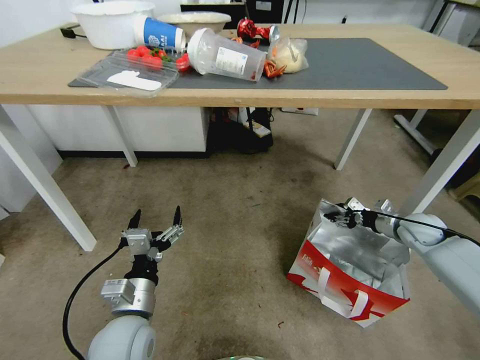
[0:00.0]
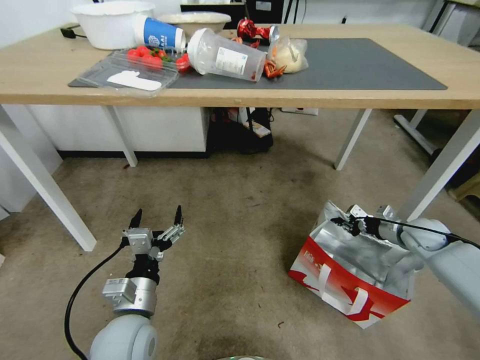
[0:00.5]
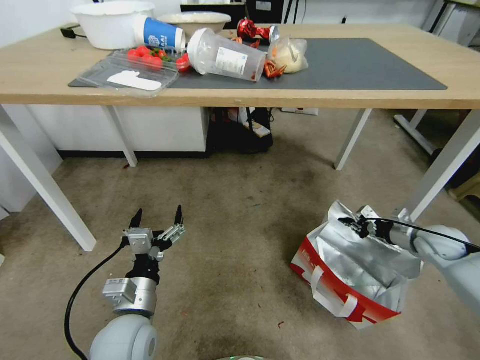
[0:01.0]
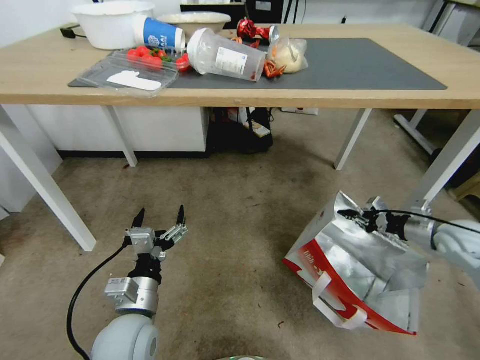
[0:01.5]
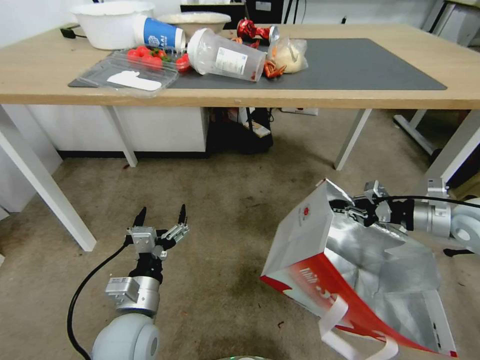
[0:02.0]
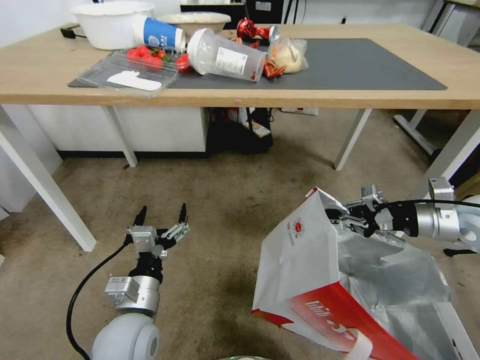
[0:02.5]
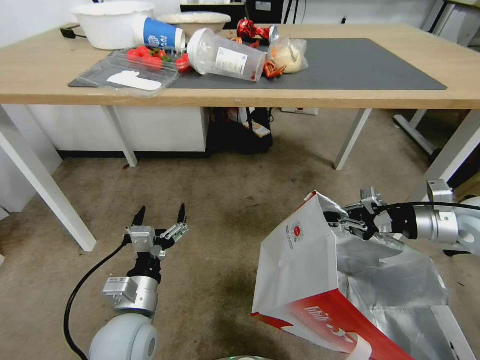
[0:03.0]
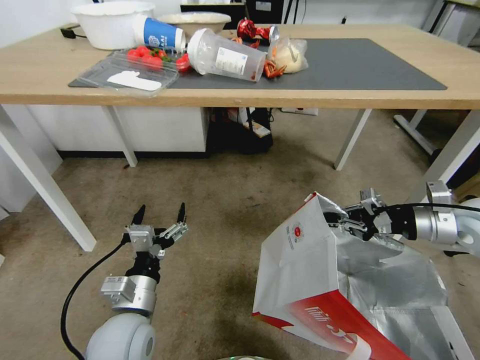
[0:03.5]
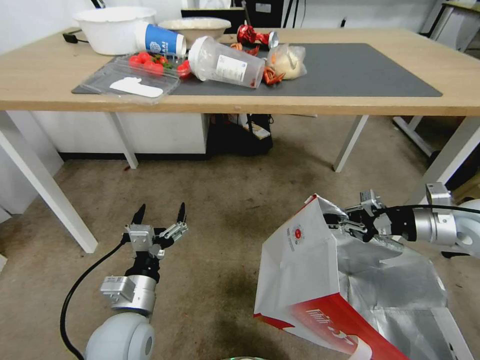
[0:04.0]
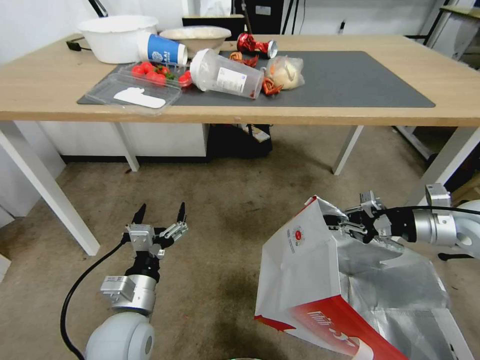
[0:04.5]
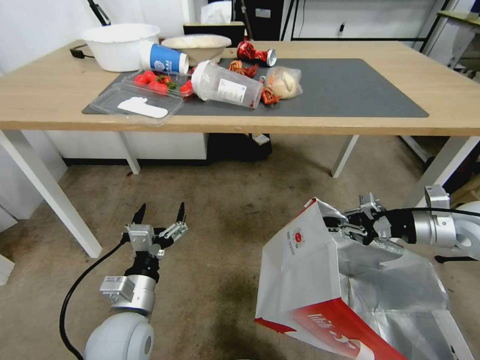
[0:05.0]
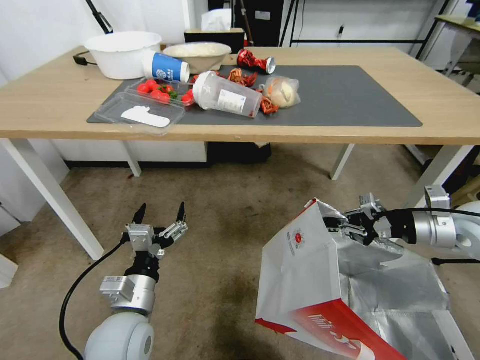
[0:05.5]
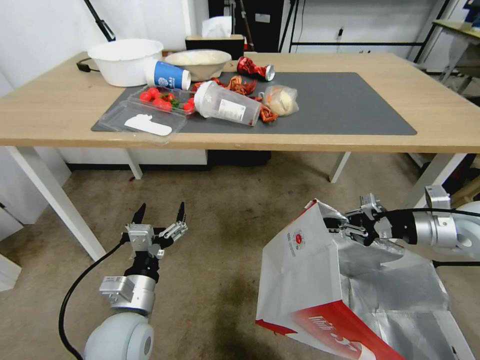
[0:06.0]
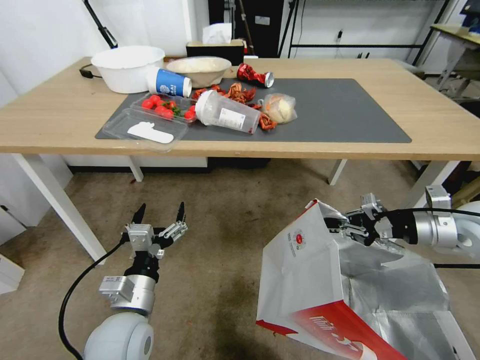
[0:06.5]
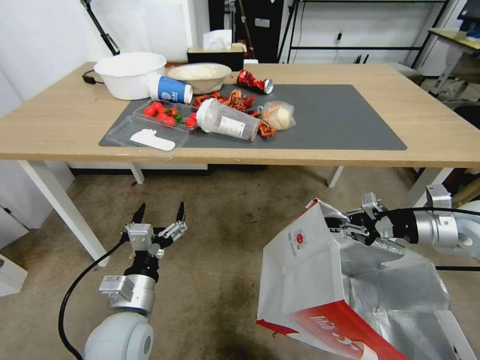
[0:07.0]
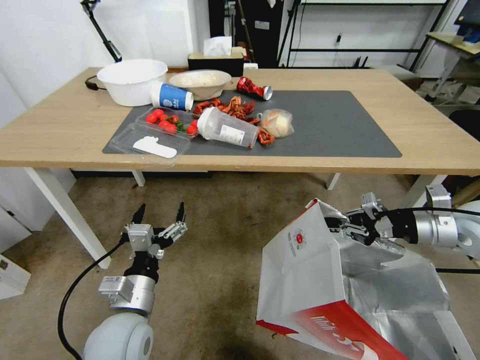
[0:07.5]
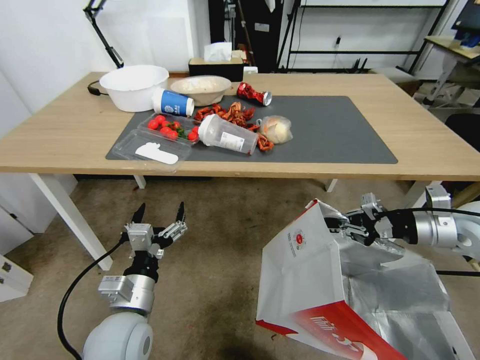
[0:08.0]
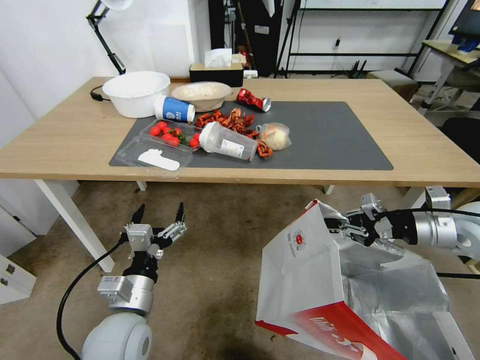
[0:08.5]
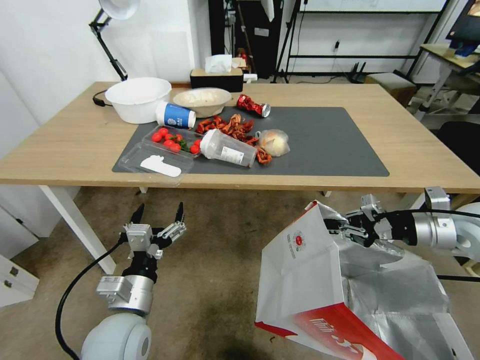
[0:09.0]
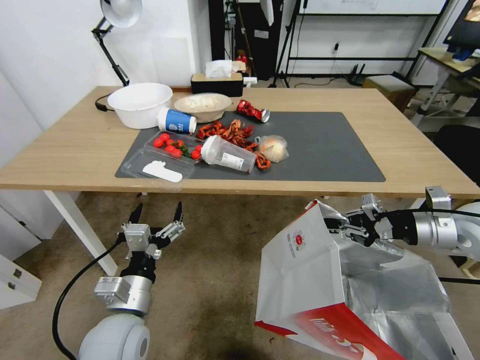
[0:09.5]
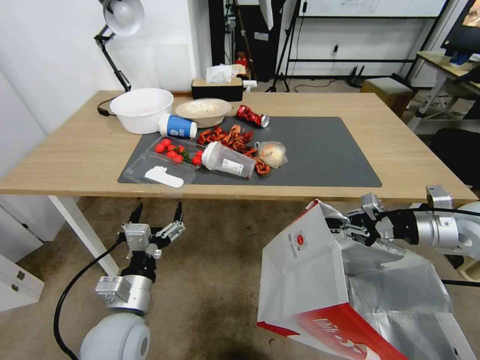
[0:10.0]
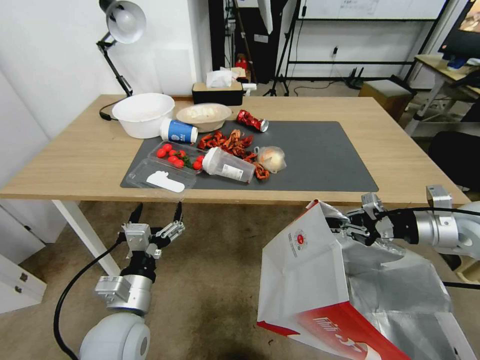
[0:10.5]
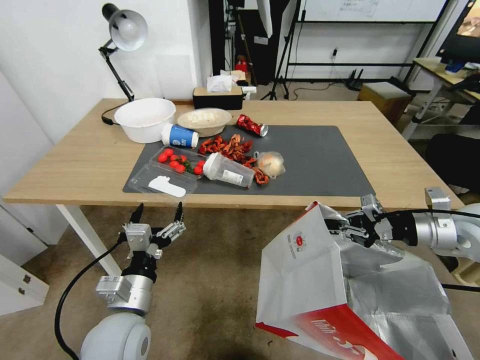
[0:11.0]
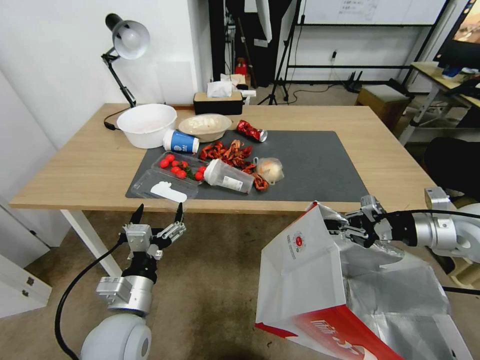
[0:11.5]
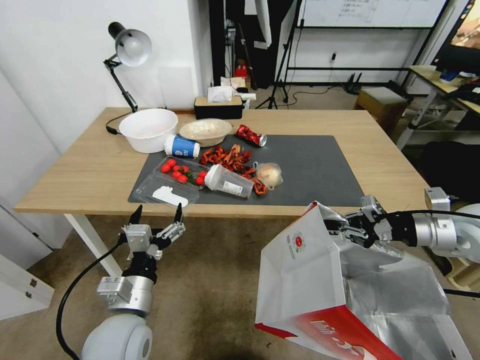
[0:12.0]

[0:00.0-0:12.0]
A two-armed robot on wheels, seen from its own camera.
Task of the whole recording: Pick up the food delivery bag from the floor and place it on the table.
0:00.0 to 0:02.0: The right gripper travels upward and backward by some 15 cm, and closes up.
0:02.0 to 0:04.0: The right gripper shifts by approximately 5 cm.

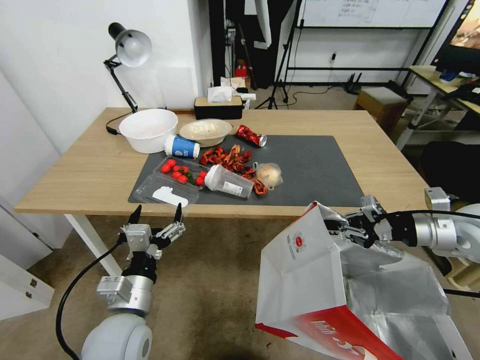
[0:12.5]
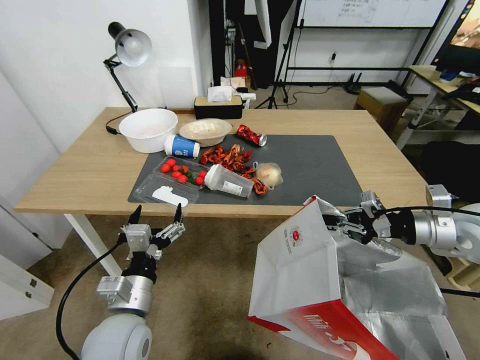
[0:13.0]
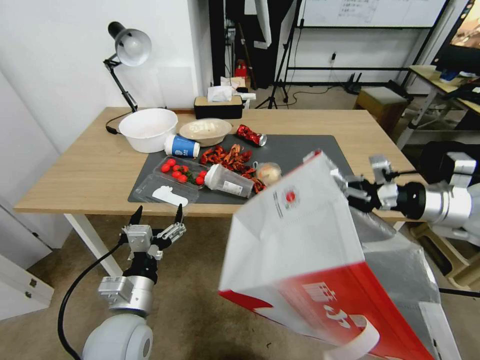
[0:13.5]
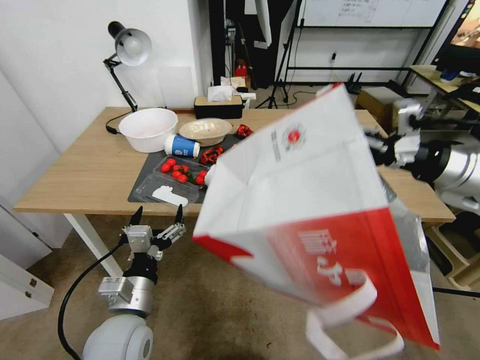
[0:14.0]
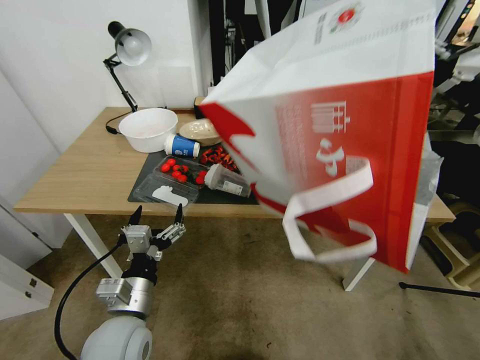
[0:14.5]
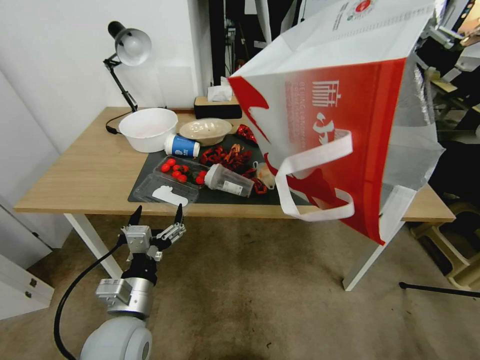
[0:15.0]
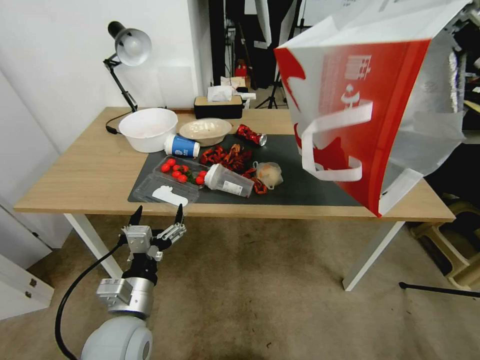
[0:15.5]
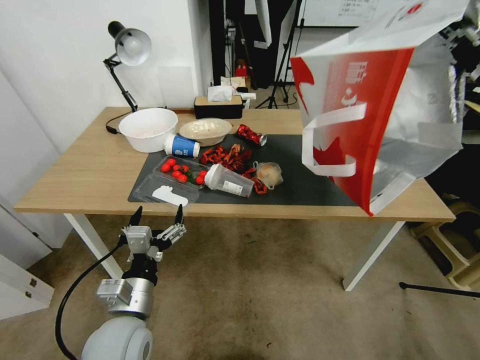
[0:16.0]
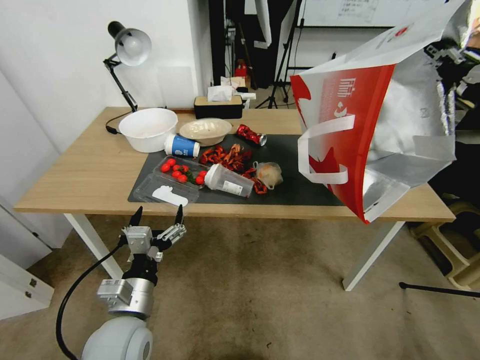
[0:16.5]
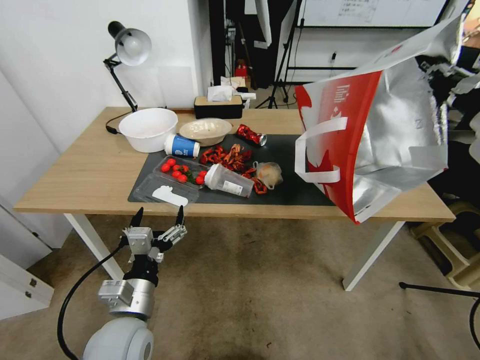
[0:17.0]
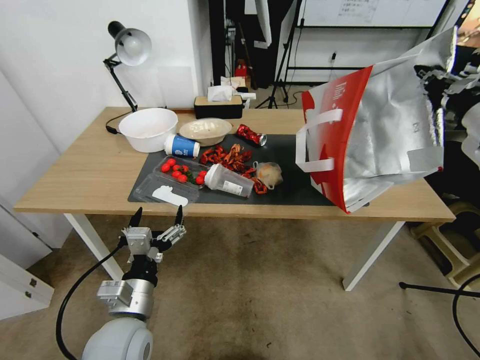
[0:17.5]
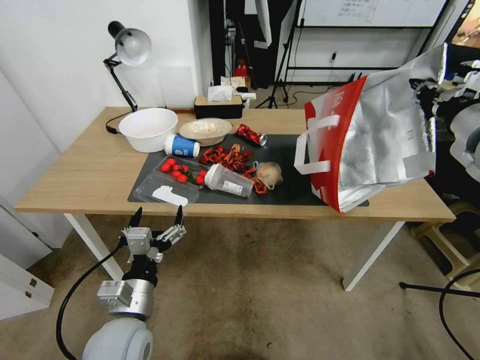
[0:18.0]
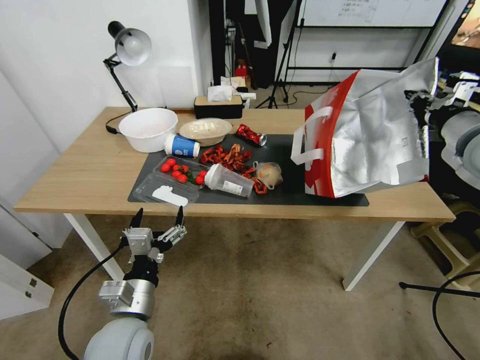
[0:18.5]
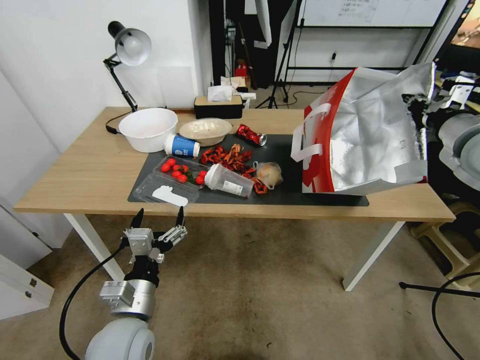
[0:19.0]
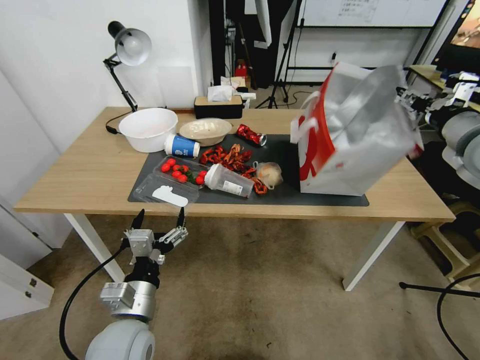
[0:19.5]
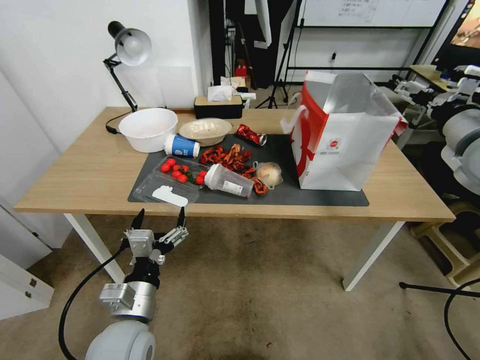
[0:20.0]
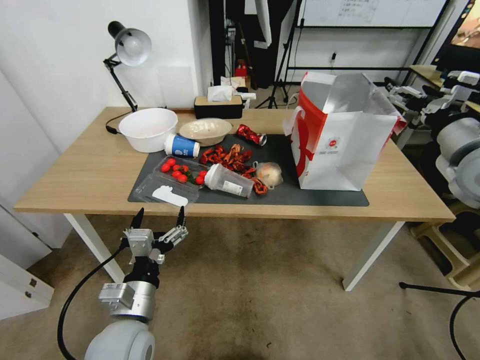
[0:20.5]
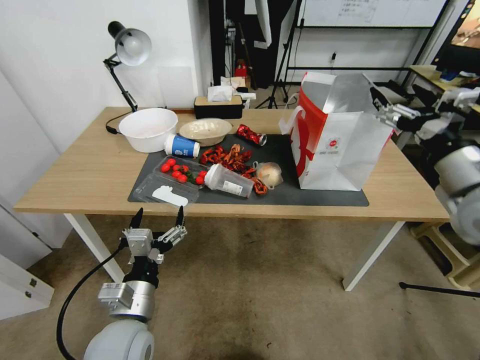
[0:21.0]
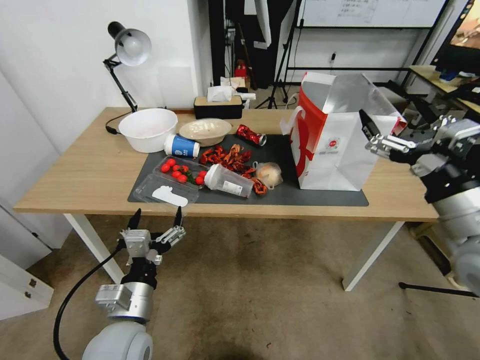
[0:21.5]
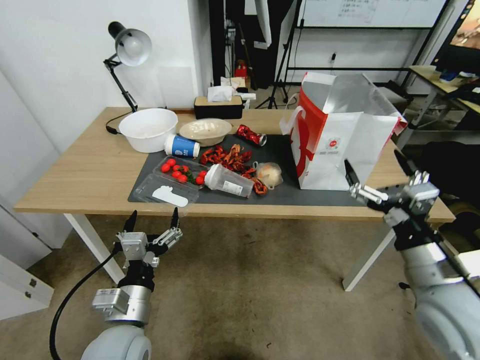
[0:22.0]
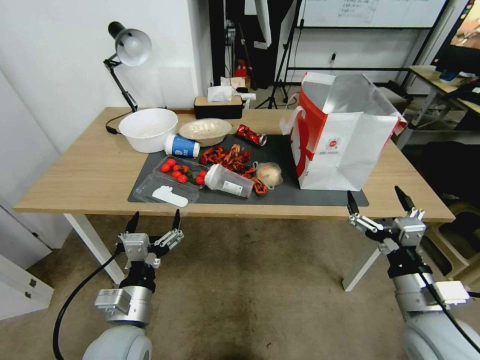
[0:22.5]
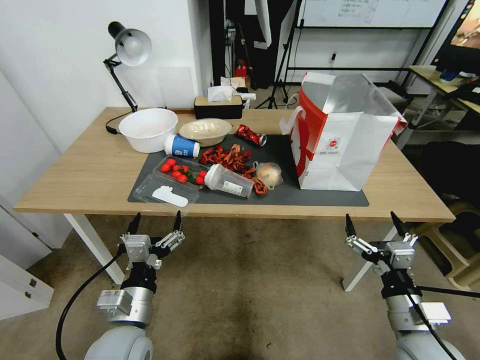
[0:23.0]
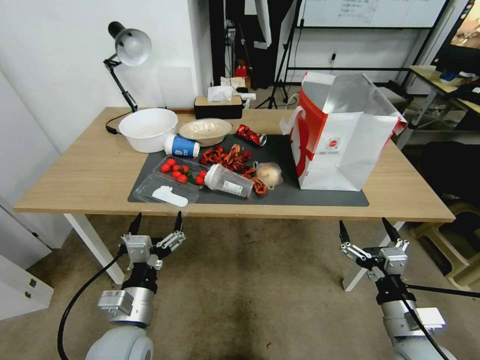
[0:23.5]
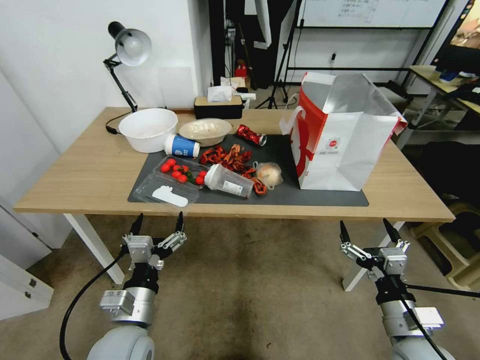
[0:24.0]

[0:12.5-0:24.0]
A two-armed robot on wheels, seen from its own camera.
Task of the whole recording: Pick up the food delivery bag from the floor and place it on the table.
0:12.5 to 0:14.5: The right gripper heads upward, covering approximately 20 cm.
0:16.5 to 0:18.5: The right gripper moves about 5 cm.
0:18.5 to 0:20.0: The right gripper opens.
0:20.0 to 0:22.0: The right gripper travels backward, downward and to the left by about 20 cm.
0:22.0 to 0:24.0: The right gripper travels downward by approximately 20 cm.
